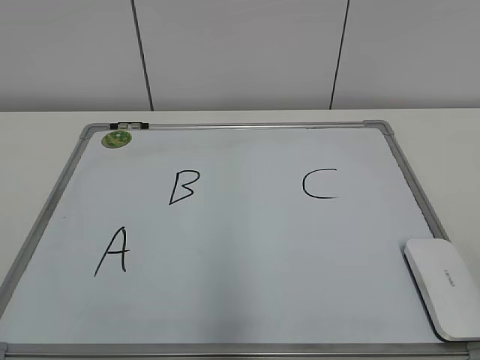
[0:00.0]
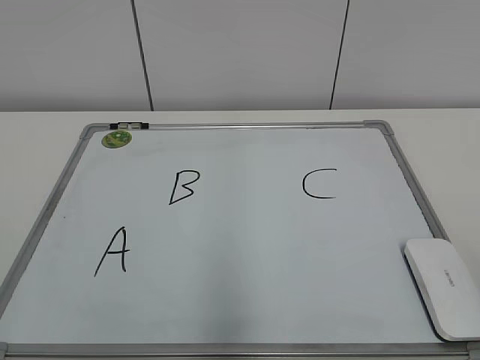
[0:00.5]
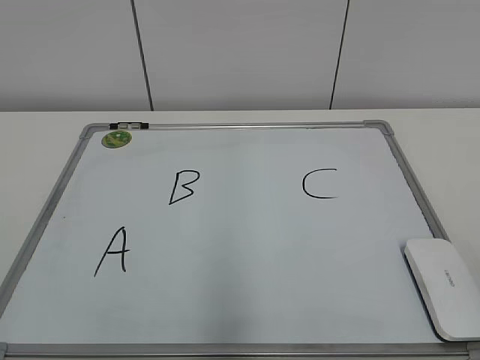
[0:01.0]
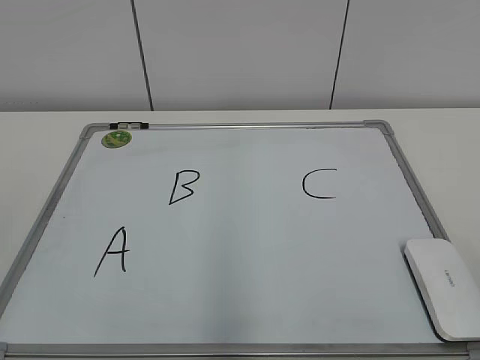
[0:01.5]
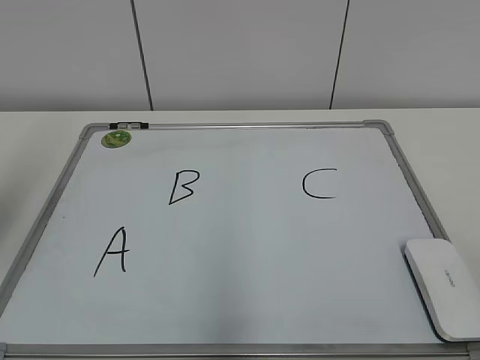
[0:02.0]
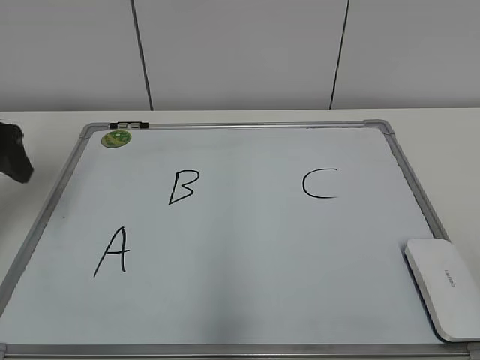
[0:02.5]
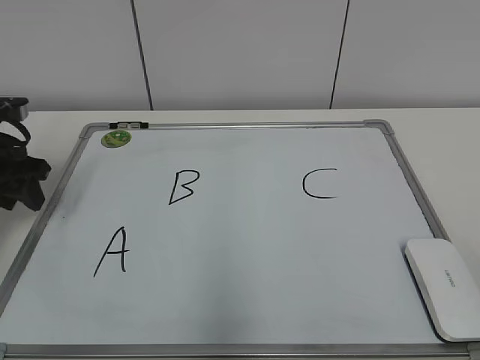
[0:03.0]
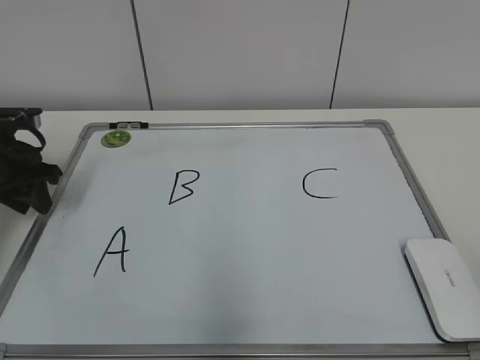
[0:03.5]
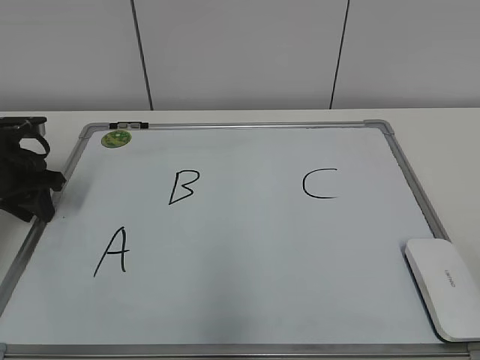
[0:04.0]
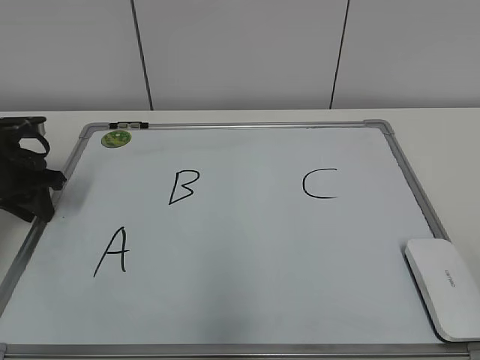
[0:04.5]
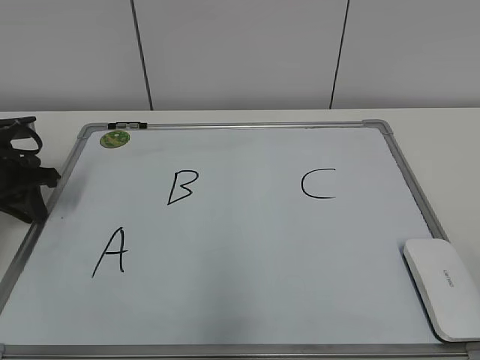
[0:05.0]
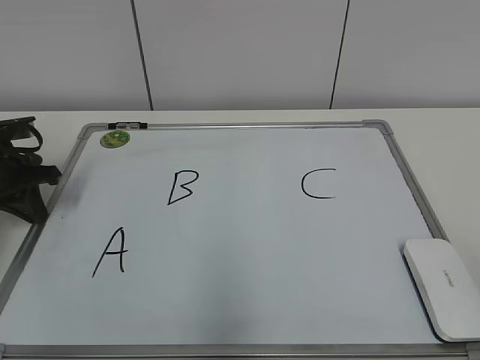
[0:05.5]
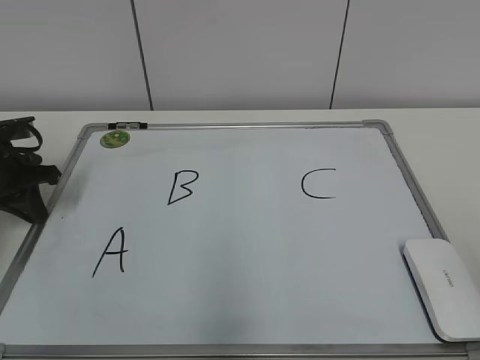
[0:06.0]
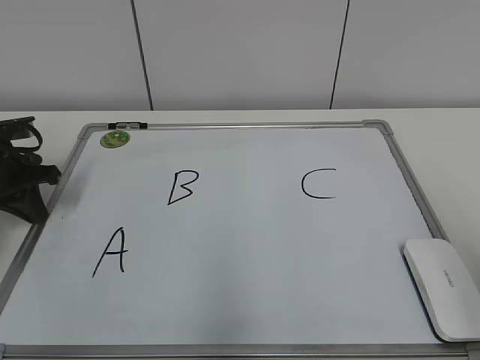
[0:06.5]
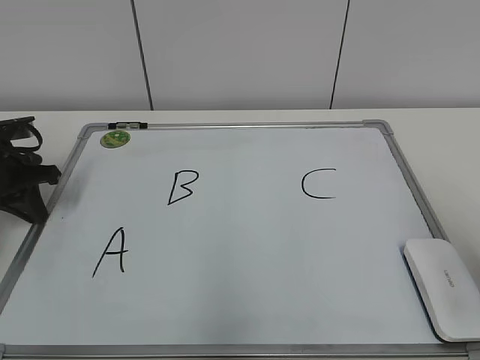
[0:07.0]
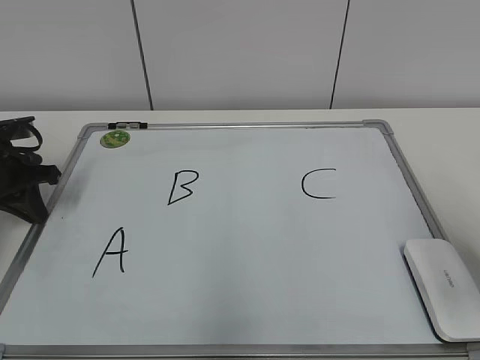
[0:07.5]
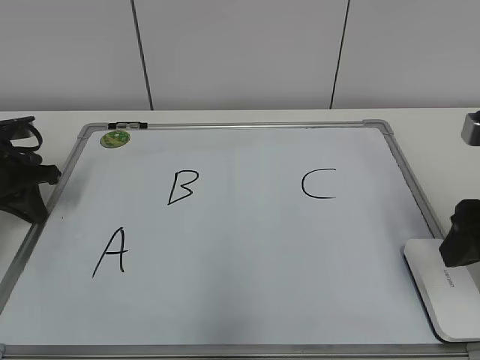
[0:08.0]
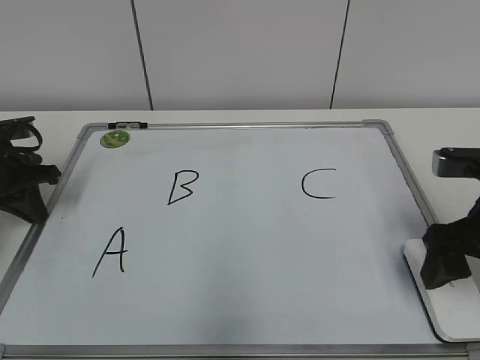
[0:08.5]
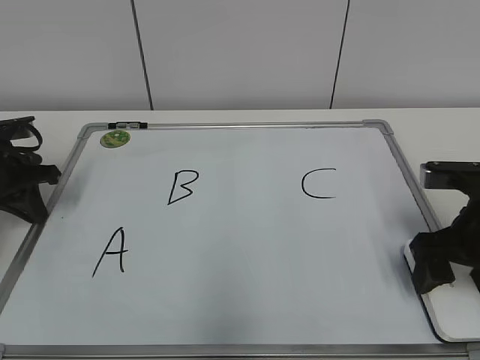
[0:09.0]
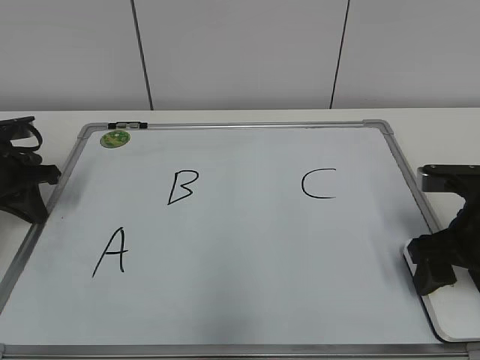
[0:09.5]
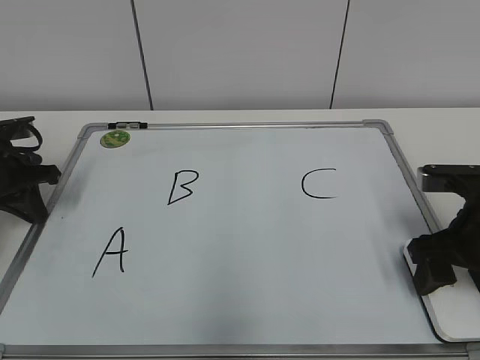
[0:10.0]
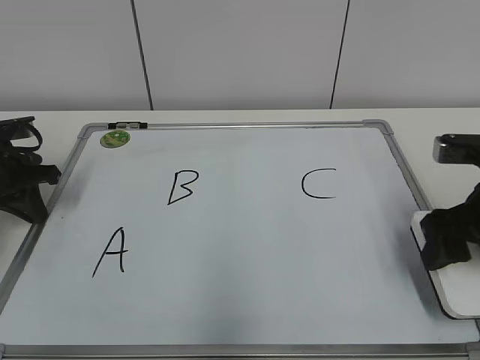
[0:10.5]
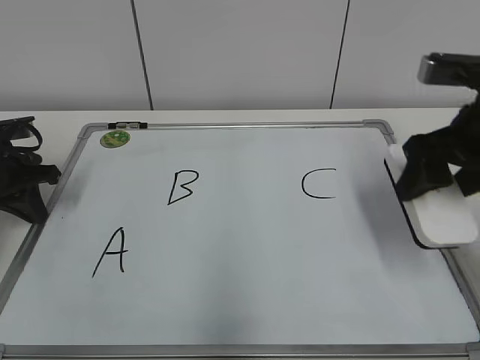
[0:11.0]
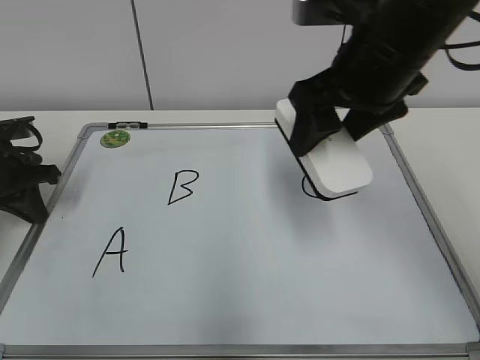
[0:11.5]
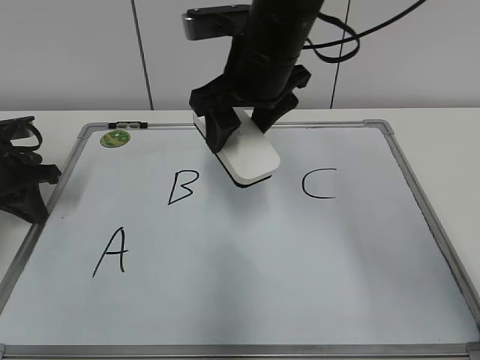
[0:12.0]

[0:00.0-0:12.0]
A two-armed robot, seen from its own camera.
Task of the whole recording: pick up the eraser on the blackboard and erase the letter "B".
Step, 0:00.0 to 0:05.0: Hold the drawing board steady with your left hand.
Step, 0:05.5 to 0:09.5: Grab the eraser with your right hand.
0:02.0 to 0:04.0: The left gripper travels downward and forward by approximately 25 cm, and closes its fingers.
0:04.0 to 0:06.0: The left gripper closes its fingers.
0:06.0 to 0:08.0: The right gripper moves forward, some 20 cm.
0:08.0 to 0:10.0: The right gripper shifts about 10 cm downward, and opens, then closes again.
0:10.0 to 0:12.0: The right gripper is displaced to the left, upward and forward by roughly 25 cm.

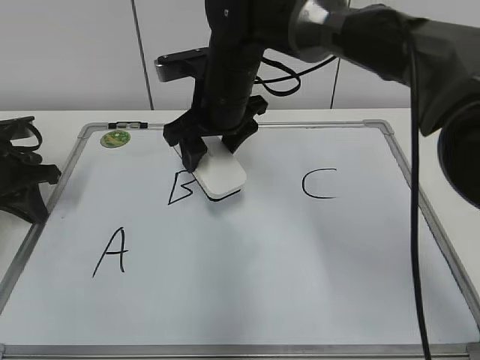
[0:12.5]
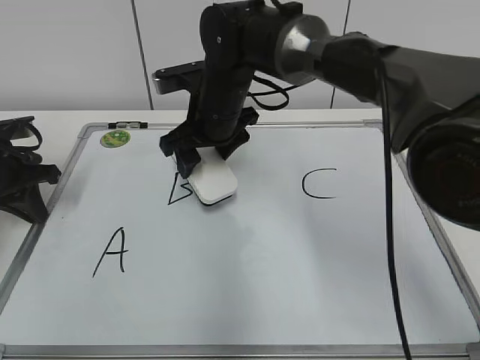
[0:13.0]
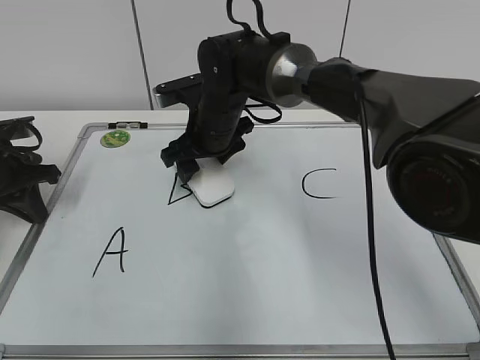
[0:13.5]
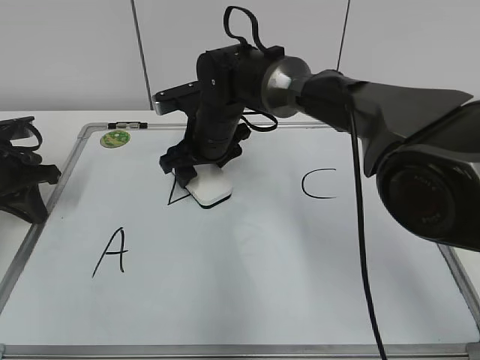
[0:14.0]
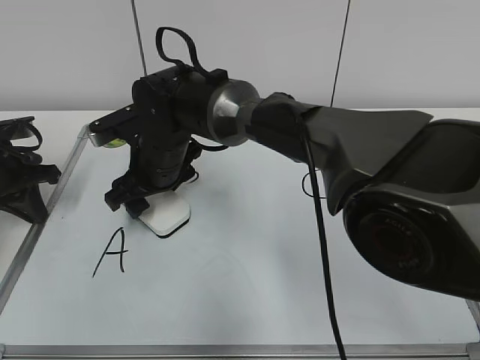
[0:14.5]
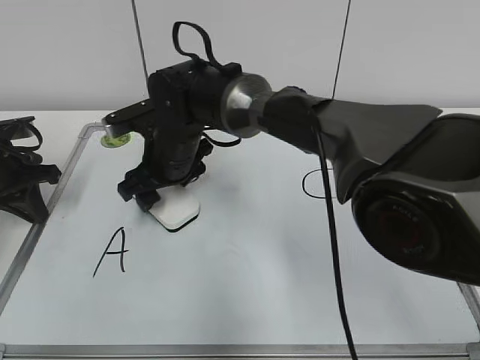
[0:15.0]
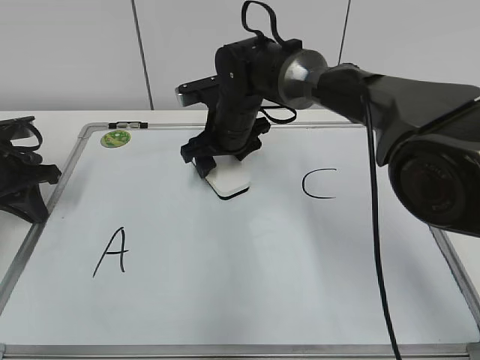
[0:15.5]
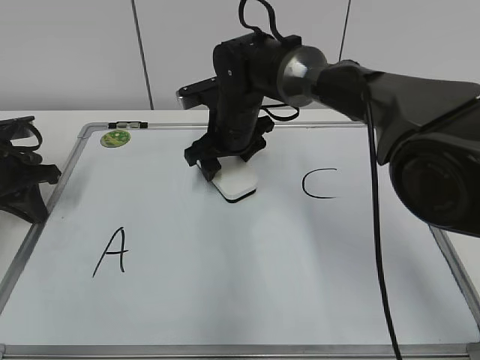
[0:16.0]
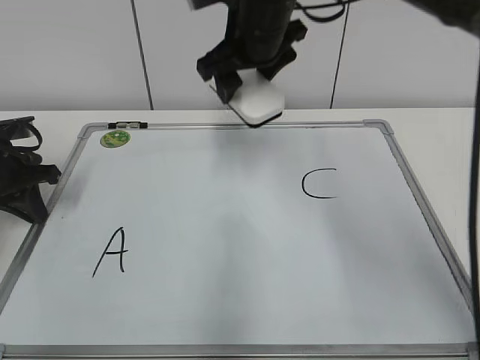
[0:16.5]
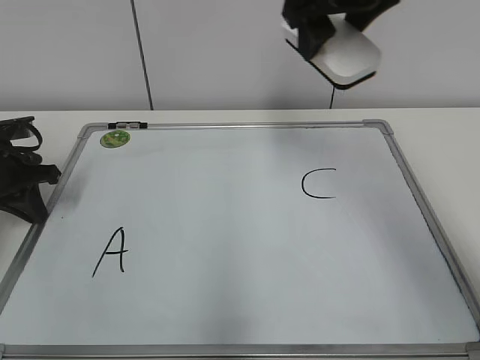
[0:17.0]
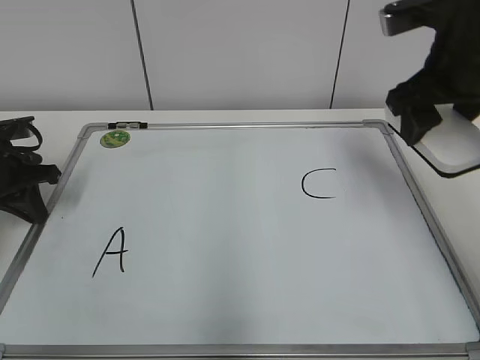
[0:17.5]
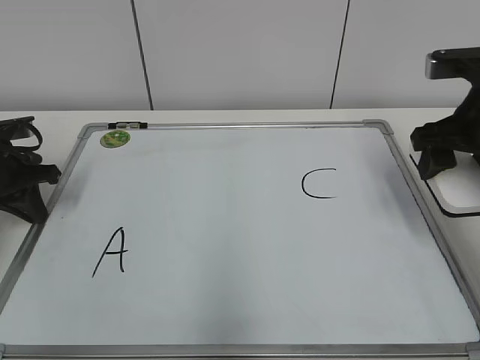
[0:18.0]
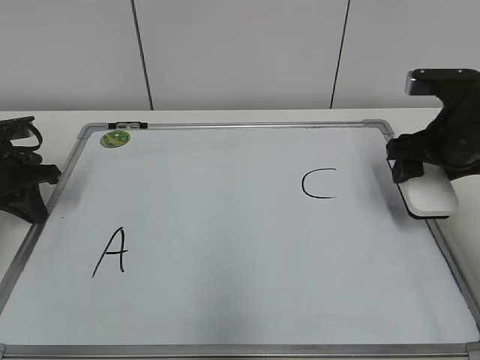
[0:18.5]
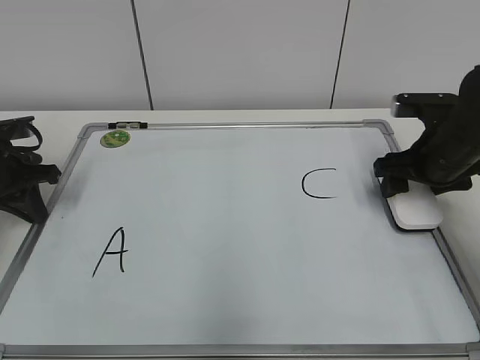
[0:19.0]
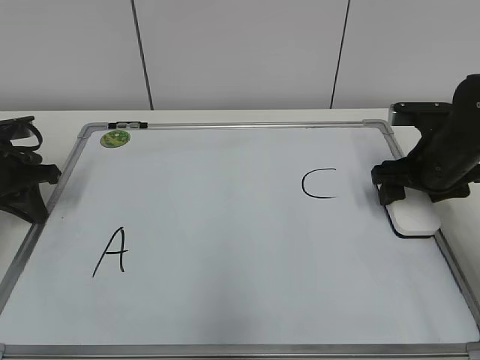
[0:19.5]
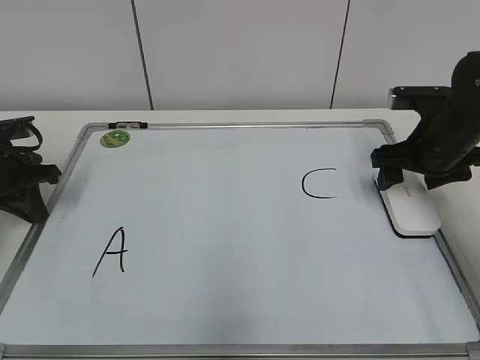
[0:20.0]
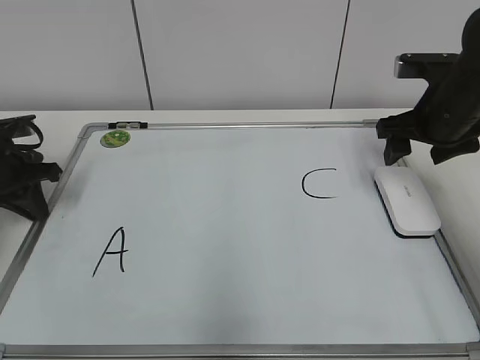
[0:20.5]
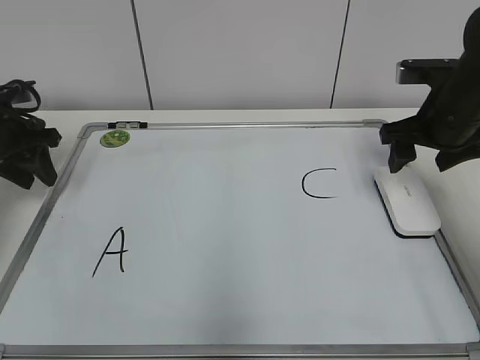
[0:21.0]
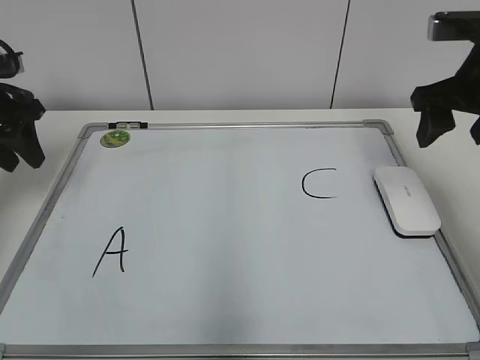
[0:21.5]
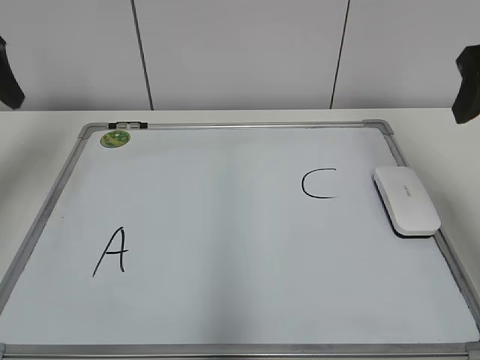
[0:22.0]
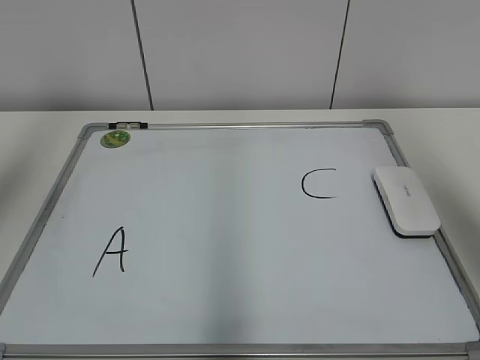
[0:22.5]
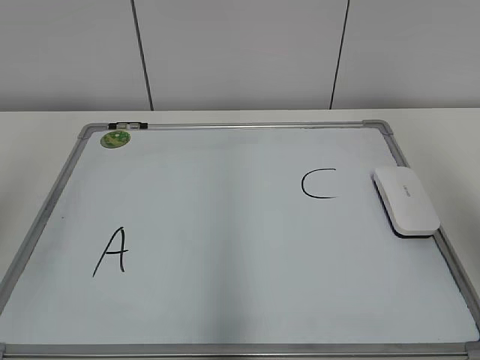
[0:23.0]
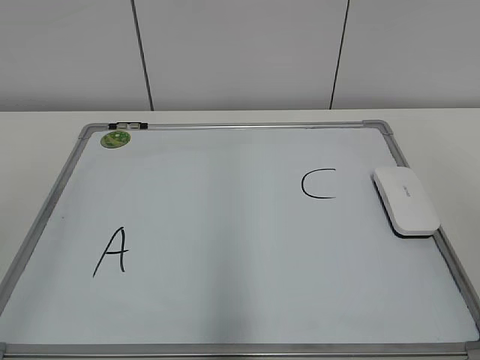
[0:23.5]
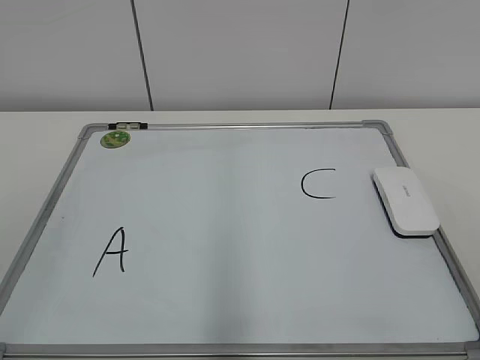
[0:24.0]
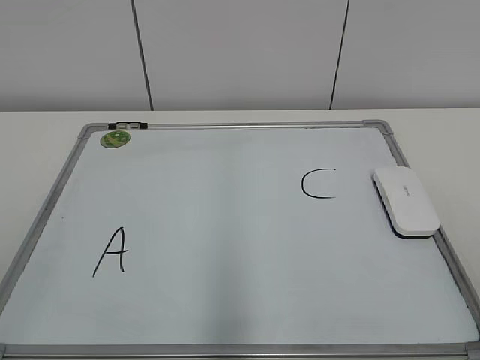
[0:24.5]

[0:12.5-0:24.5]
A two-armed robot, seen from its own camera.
Task of the whole recording: pick up the eraser on the blackboard and erase the letter "B".
Step, 0:12.5 to 0:16.0: Erase the letter B with your right hand.
Step, 0:16.5 to 0:19.0: Put down the eraser with your right hand.
0:12.5 to 0:14.5: The right gripper is displaced to the left and downward by about 10 cm.
0:14.5 to 0:16.5: The right gripper heads upward and to the right, covering approximately 20 cm.
0:16.5 to 0:18.5: The right gripper moves to the right and downward, approximately 25 cm.
0:18.5 to 0:20.5: The right gripper opens up.
0:20.5 to 0:22.5: Both grippers travel together upward and backward, about 30 cm. The left gripper opens.
0:22.5 to 0:24.5: The grippers both shift backward and downward by approximately 25 cm.

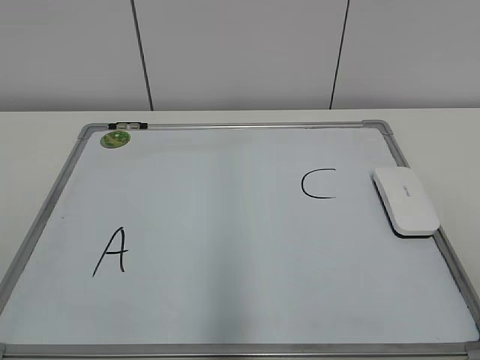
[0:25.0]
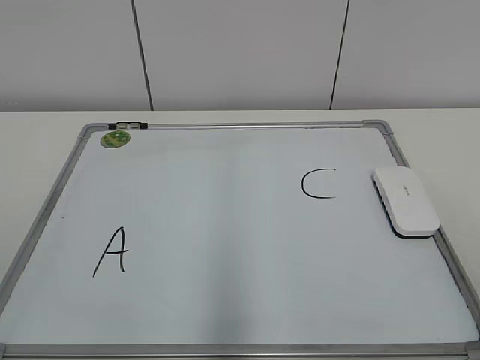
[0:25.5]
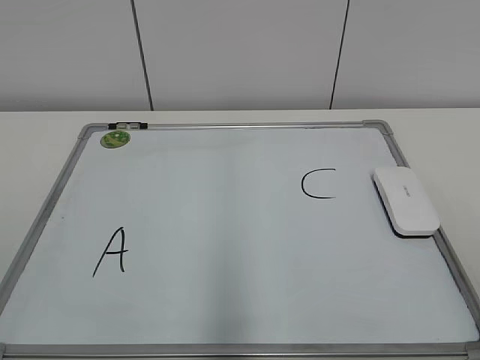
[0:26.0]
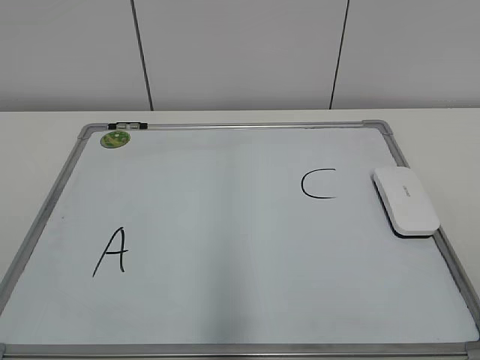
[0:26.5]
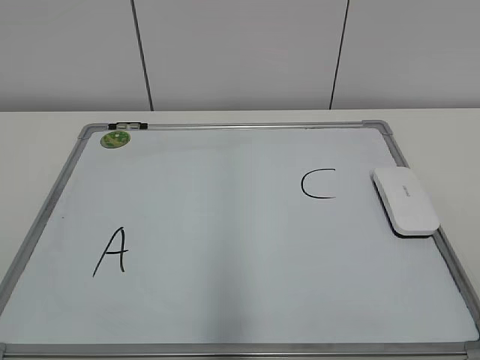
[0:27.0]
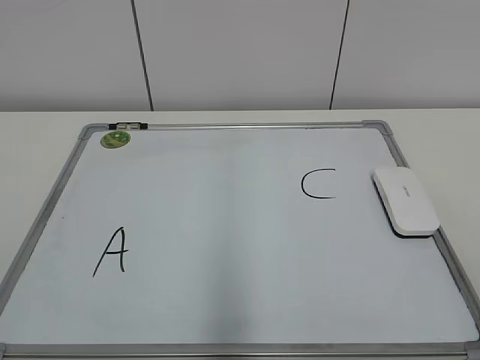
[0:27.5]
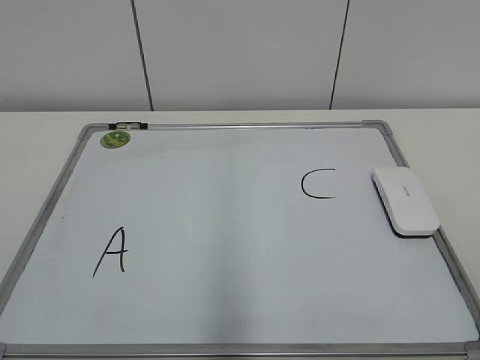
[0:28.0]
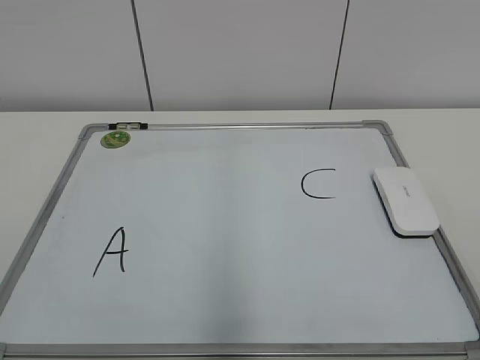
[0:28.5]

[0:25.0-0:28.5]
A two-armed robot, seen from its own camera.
Task of the whole recording: pick up the eraser on the blackboard and erase the letter "B".
0:27.0 to 0:28.5: Both grippers stay about where they are.
